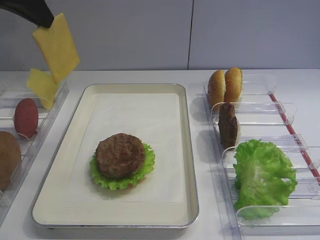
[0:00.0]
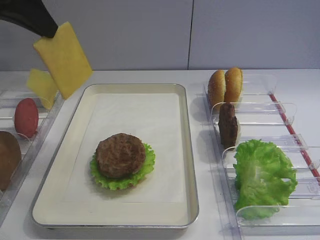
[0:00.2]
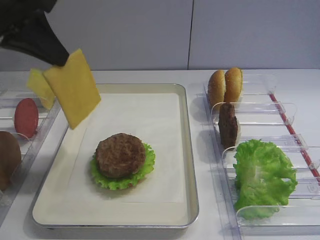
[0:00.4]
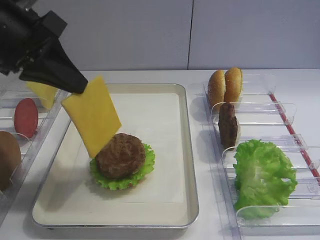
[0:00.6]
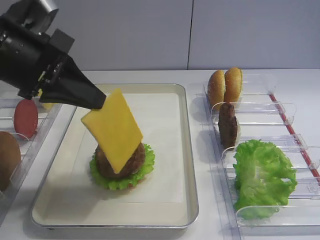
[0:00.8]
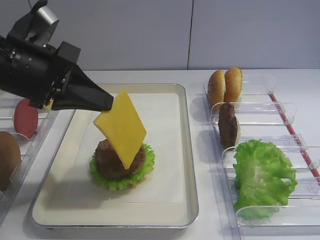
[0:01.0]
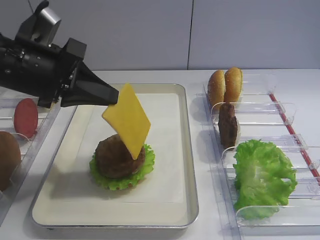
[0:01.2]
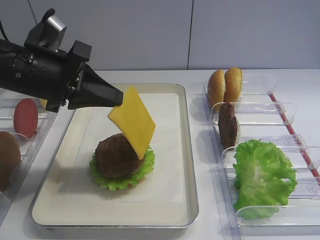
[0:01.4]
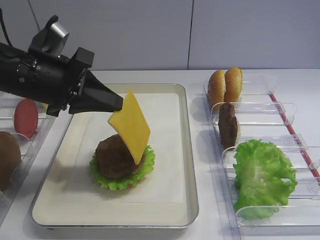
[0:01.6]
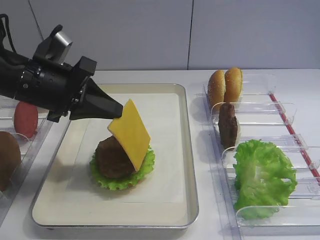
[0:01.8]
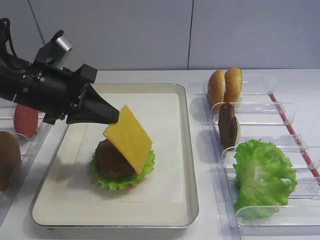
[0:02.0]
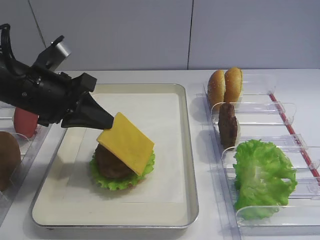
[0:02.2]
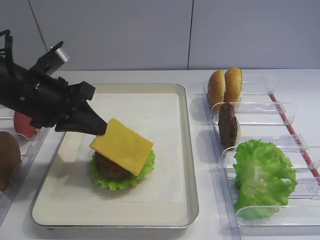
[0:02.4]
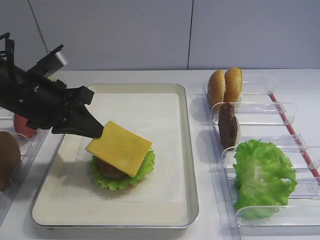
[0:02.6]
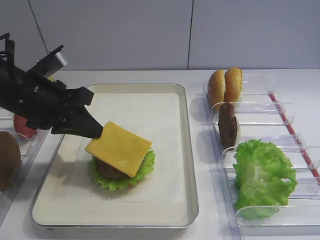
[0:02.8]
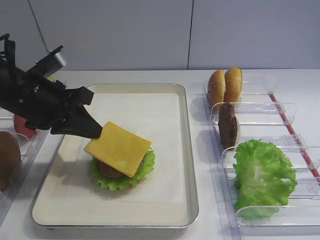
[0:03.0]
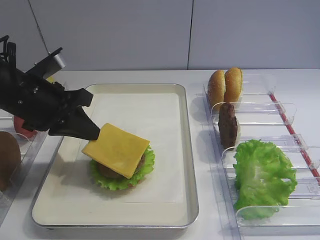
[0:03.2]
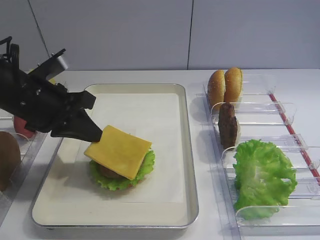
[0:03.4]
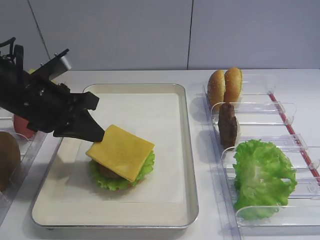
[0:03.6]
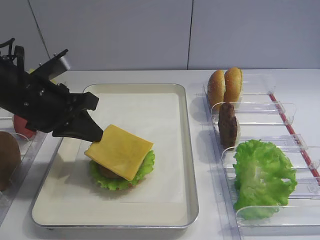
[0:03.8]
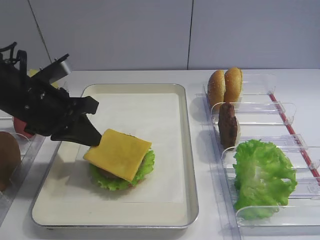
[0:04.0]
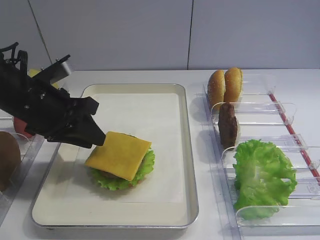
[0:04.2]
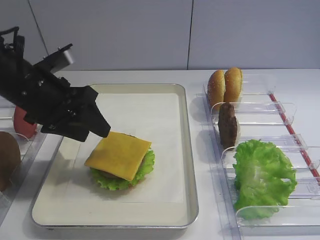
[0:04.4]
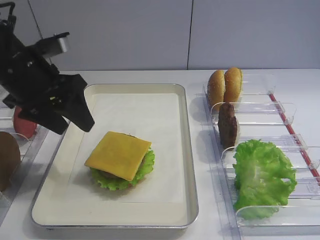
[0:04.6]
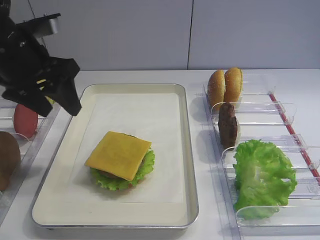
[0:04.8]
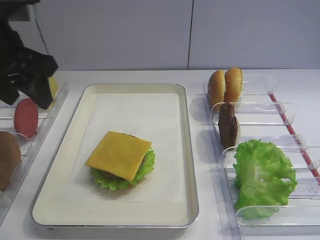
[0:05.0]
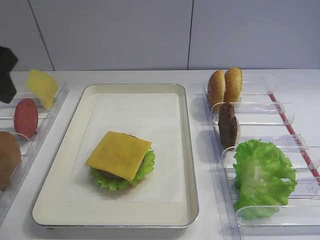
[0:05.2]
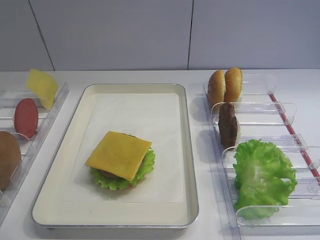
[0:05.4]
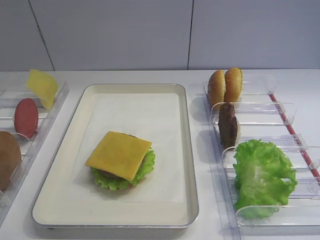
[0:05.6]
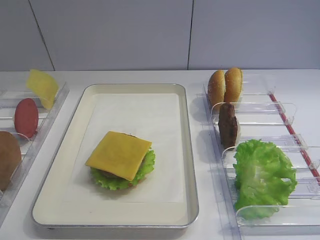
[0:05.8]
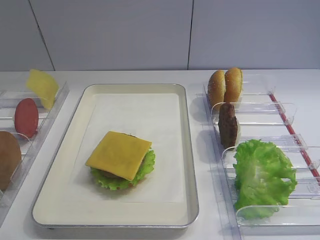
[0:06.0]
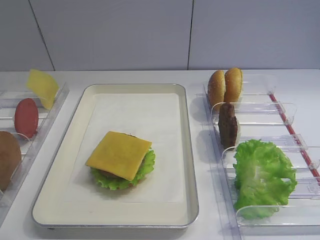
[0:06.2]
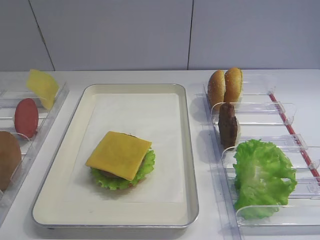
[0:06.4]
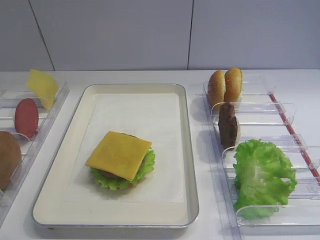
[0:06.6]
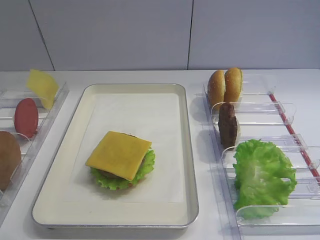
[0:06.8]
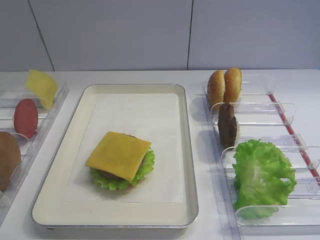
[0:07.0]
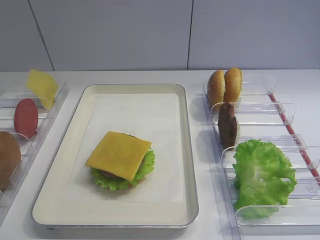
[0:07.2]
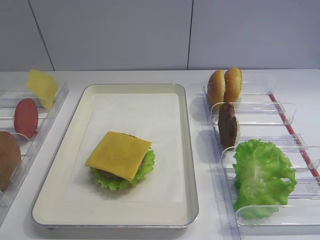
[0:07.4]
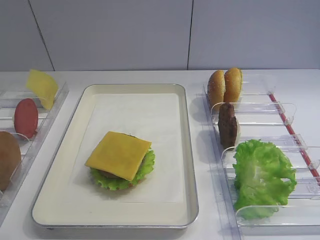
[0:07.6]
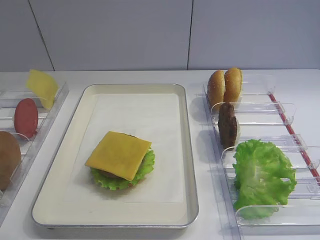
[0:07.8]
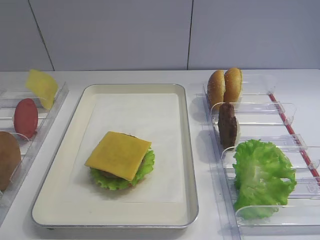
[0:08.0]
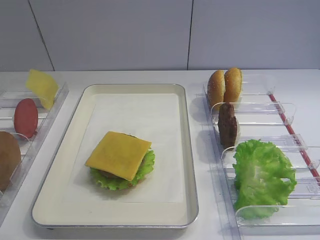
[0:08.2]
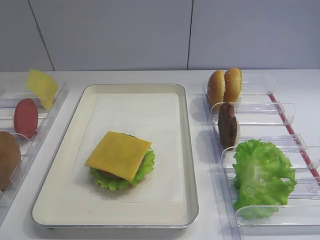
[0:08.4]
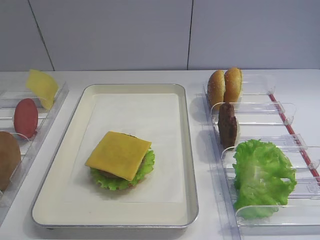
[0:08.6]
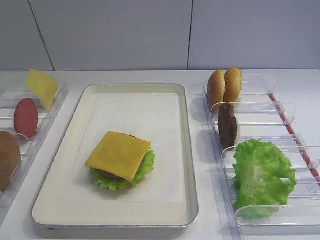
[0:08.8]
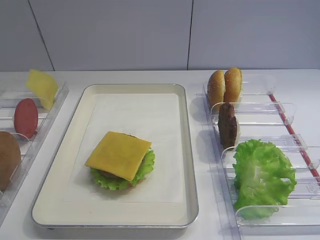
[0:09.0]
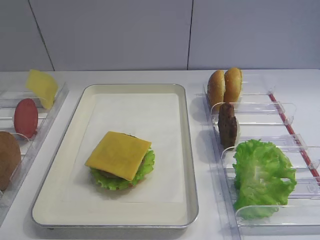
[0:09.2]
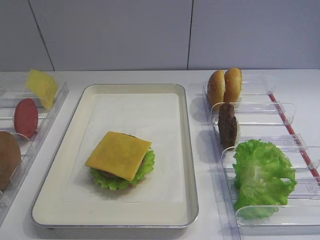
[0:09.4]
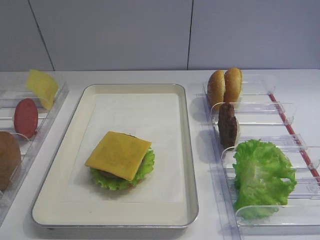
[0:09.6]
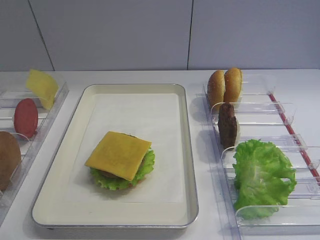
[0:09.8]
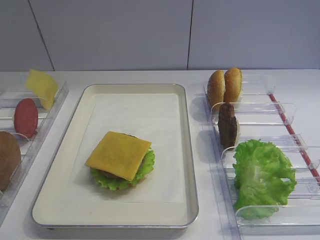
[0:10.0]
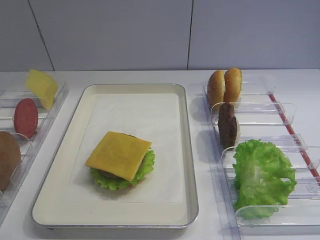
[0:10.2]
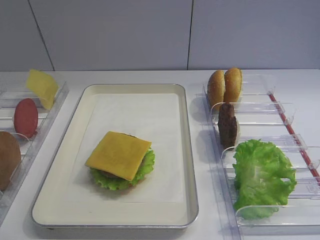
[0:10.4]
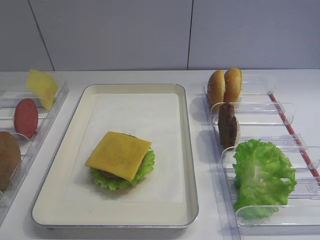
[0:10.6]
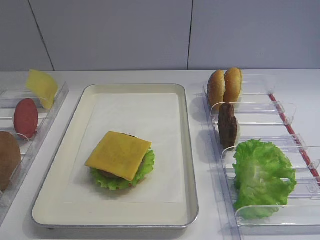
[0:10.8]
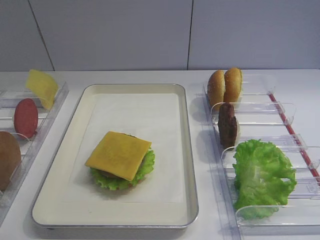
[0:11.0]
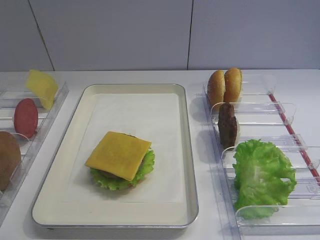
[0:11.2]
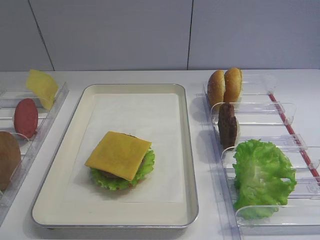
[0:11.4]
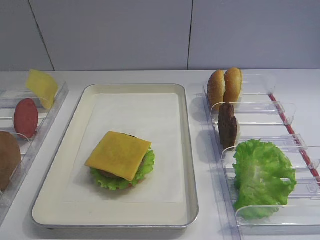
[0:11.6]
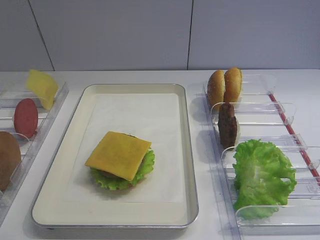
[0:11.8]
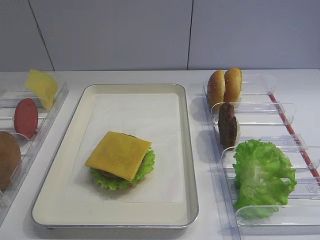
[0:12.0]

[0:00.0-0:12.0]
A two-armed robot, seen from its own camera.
Step, 0:00.0 to 0:04.6: Place the cheese slice on the cutlet with the left gripper.
0:00.0 to 0:01.6: The left gripper is displaced downward by approximately 15 cm.
0:01.6 to 0:03.0: The grippers make only small movements.
0:03.0 to 0:04.4: The left gripper opens up.
0:04.4 to 0:06.0: The left gripper shifts some 25 cm backward and upward.
0:07.6 to 0:12.0: The two grippers keep their place.

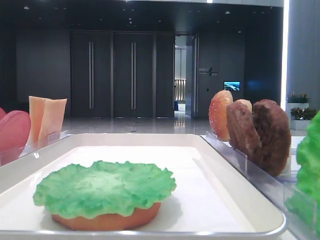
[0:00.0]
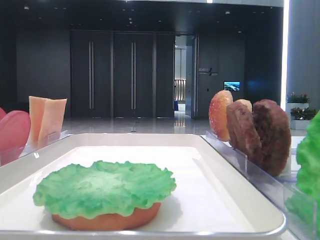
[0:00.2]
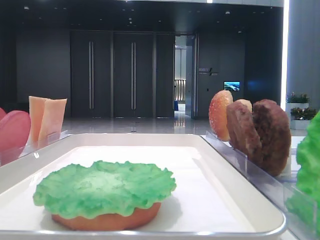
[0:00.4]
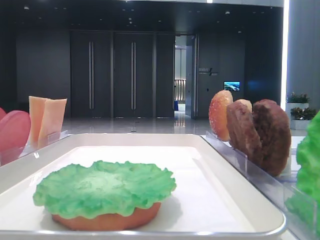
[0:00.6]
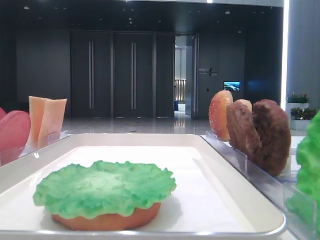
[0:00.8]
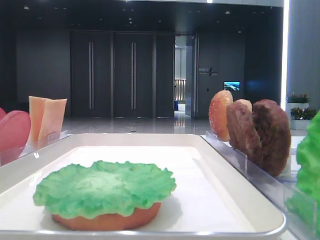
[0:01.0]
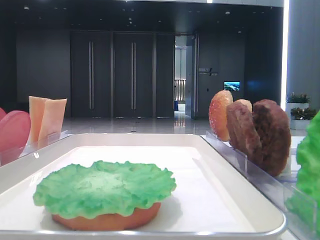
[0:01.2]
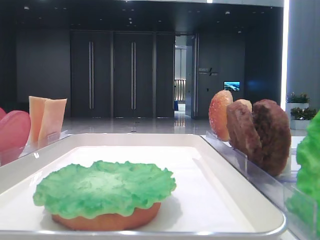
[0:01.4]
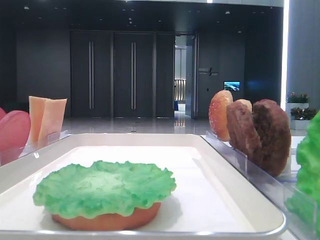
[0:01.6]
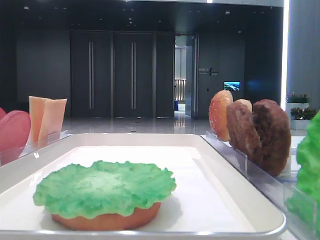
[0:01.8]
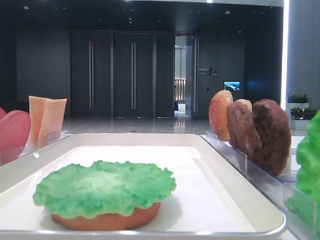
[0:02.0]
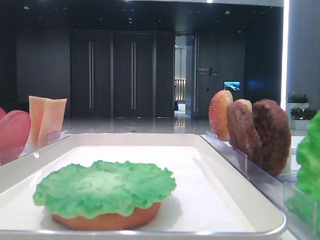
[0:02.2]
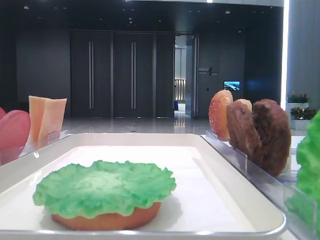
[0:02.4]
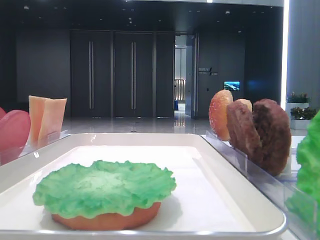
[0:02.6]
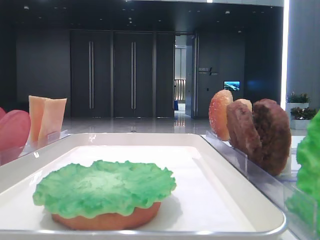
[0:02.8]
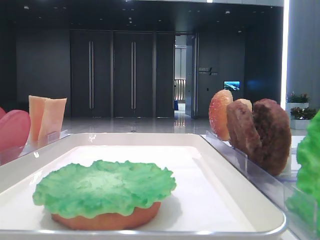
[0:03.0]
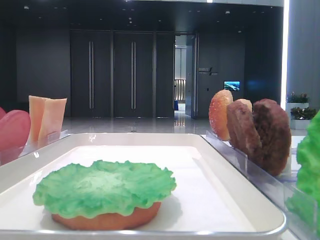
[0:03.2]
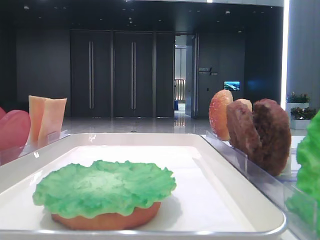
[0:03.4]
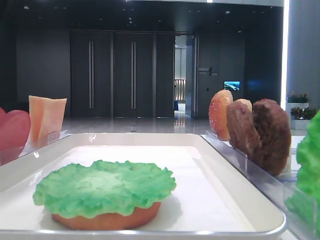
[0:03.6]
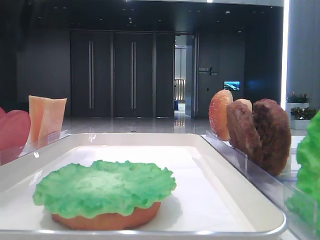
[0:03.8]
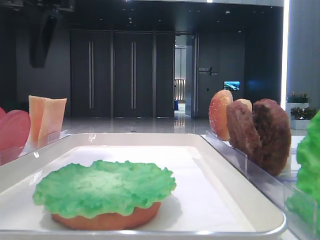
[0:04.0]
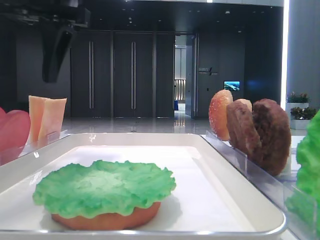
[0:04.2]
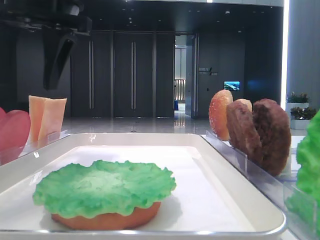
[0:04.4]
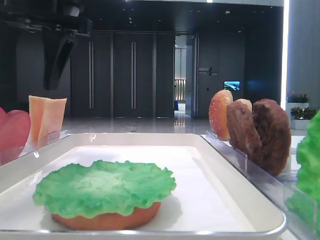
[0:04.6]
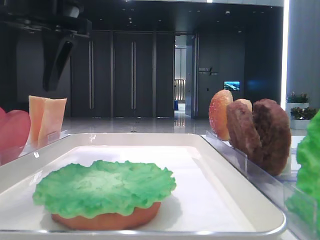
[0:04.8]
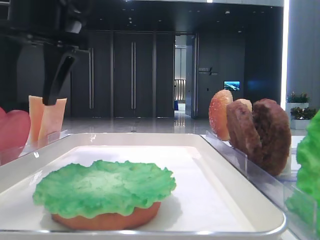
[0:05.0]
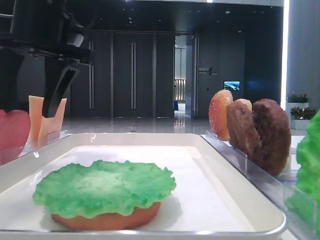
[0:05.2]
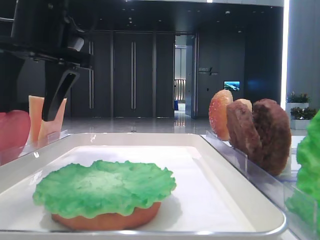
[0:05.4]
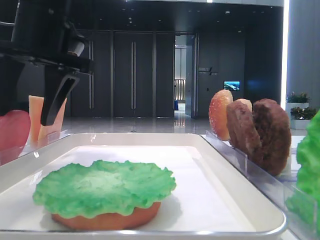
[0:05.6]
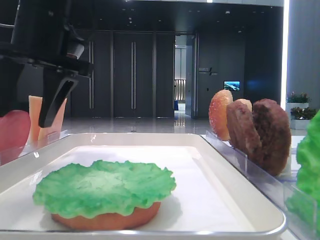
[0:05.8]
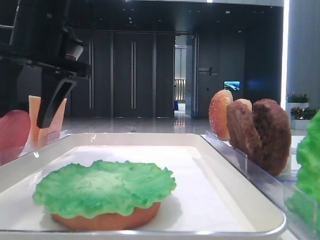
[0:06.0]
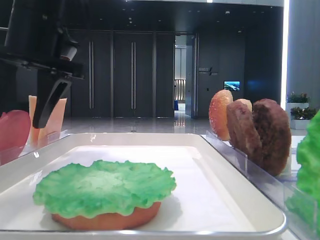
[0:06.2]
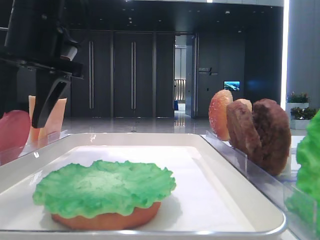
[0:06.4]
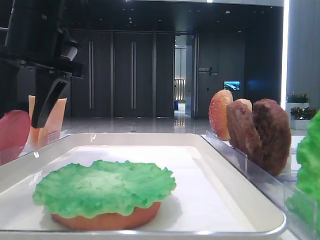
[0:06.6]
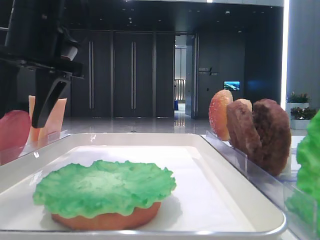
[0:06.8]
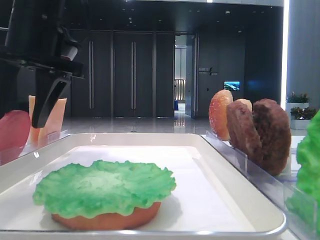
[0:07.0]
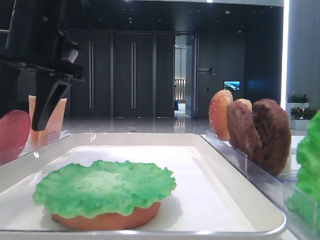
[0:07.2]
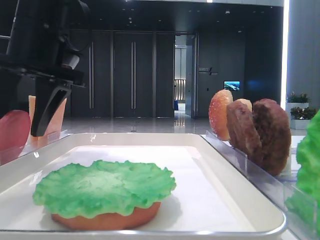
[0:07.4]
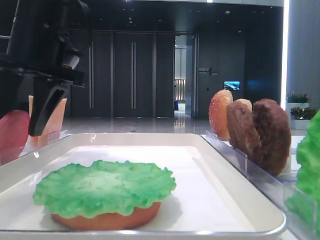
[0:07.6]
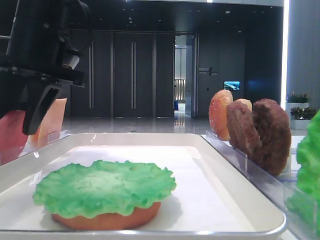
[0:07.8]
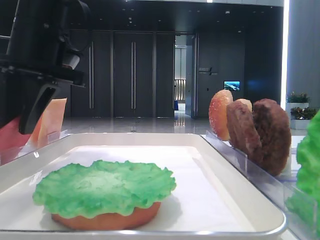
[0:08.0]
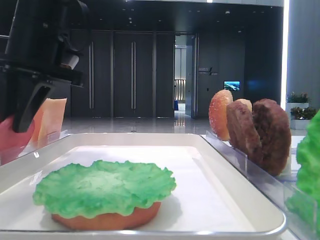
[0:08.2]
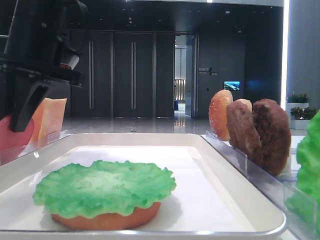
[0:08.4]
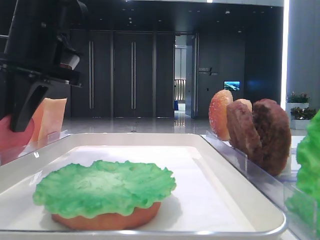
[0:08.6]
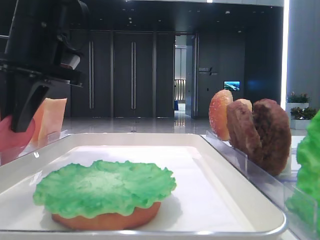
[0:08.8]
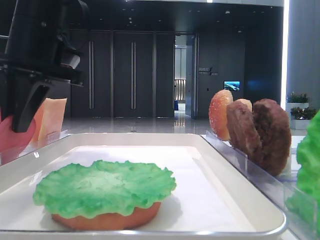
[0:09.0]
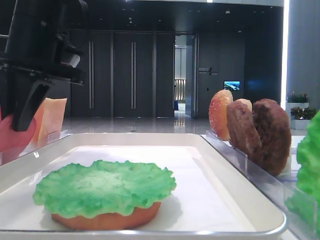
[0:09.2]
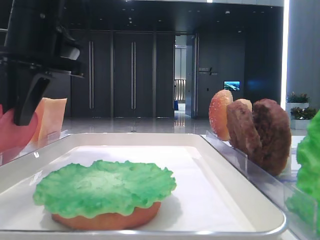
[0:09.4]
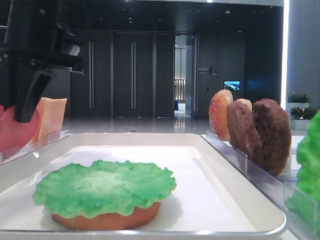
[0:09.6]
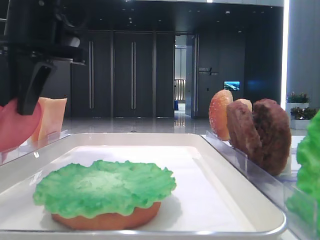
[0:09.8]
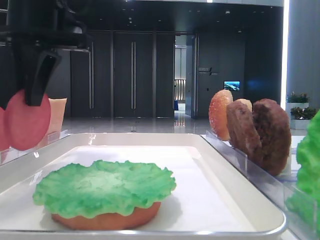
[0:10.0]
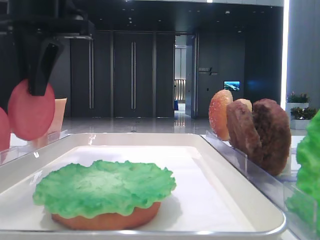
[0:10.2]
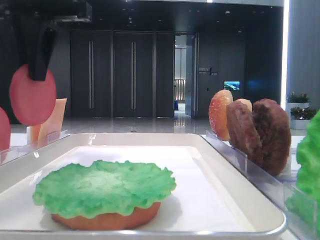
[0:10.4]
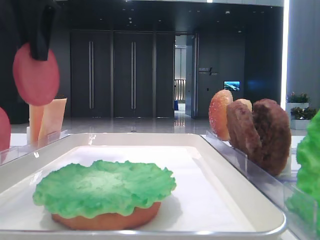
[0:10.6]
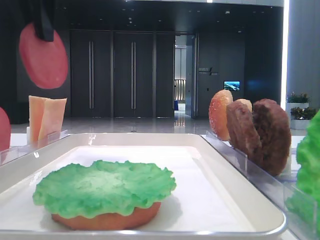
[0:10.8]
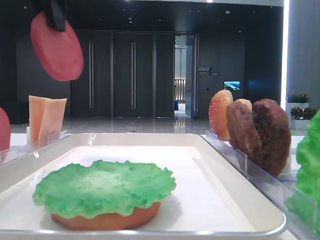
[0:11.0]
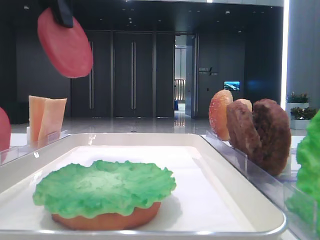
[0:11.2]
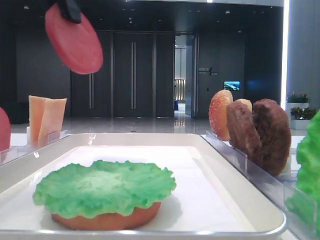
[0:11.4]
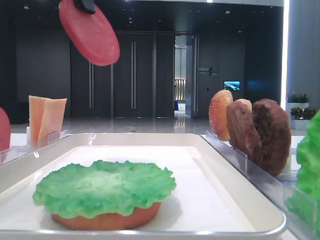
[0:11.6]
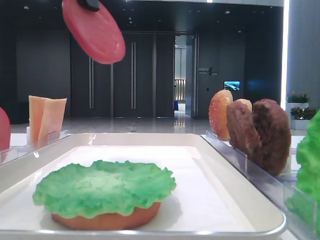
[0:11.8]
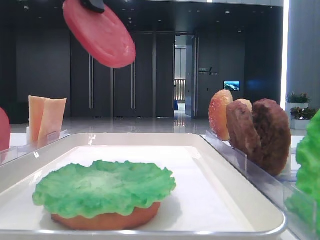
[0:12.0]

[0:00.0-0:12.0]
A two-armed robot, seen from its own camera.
Step, 0:00.0 to 0:08.2: Pick up the tomato slice with the left hand.
0:03.0 to 0:04.4: The left gripper travels to the right by approximately 15 cm.
0:04.4 to 0:06.0: The left gripper changes place by some 5 cm.
0:06.0 to 0:07.6: Both grippers stay about where they are.
0:07.6 to 0:09.0: The left gripper closes.
0:09.0 to 0:10.4: The left gripper shifts approximately 5 cm upward.
0:10.4 to 0:12.0: The left gripper moves some 5 cm.
